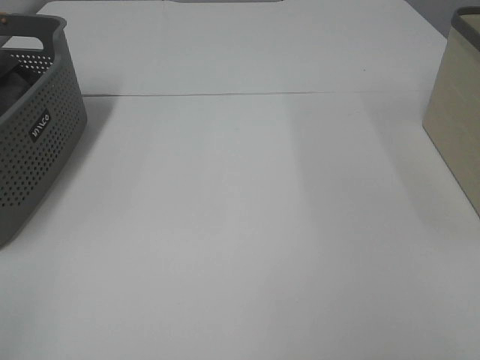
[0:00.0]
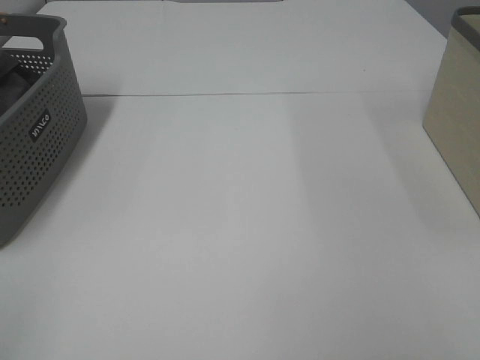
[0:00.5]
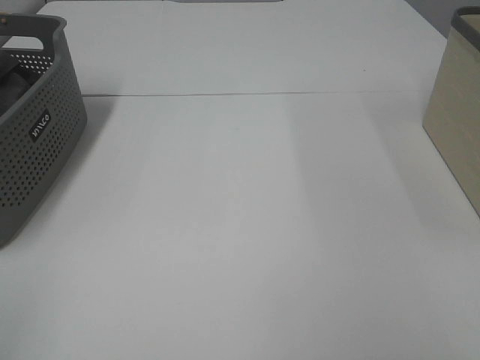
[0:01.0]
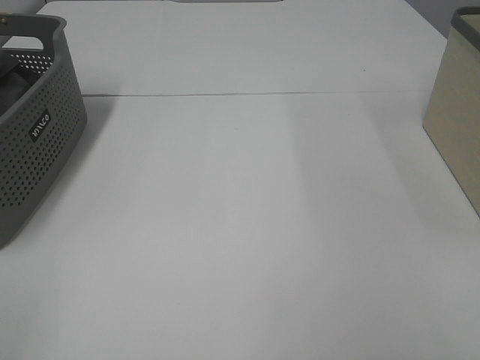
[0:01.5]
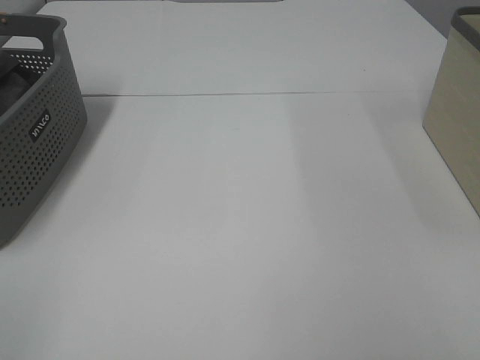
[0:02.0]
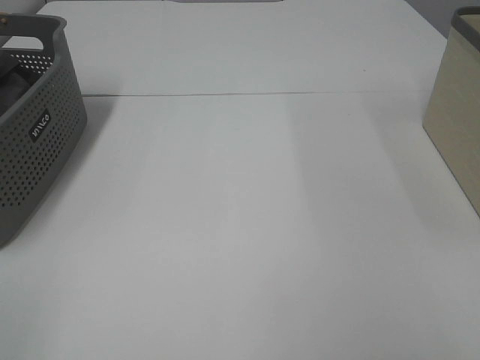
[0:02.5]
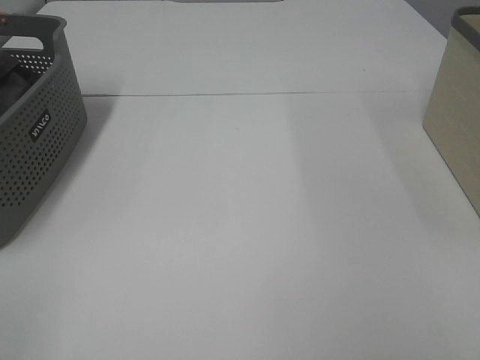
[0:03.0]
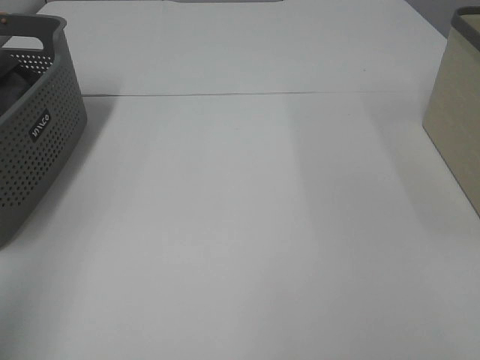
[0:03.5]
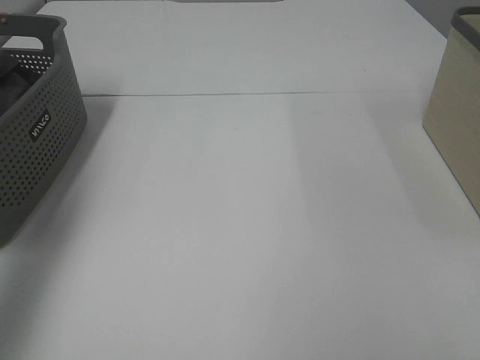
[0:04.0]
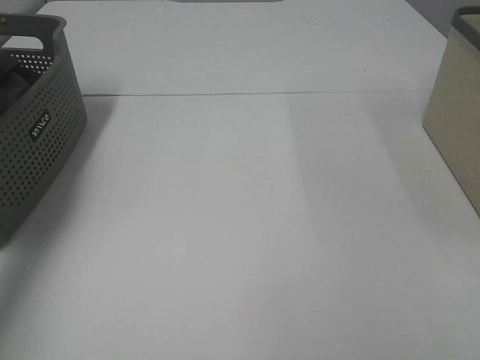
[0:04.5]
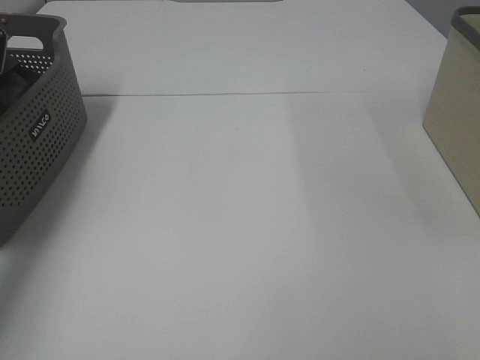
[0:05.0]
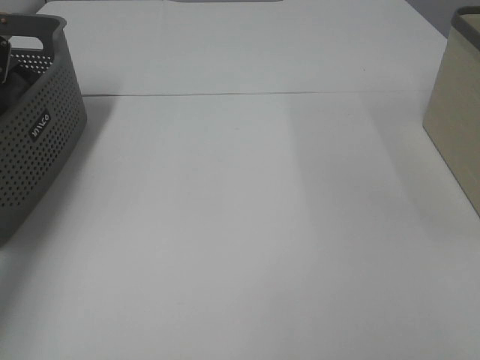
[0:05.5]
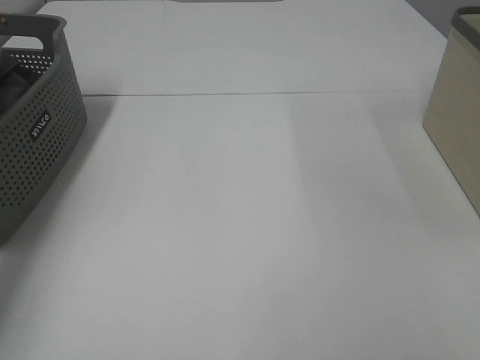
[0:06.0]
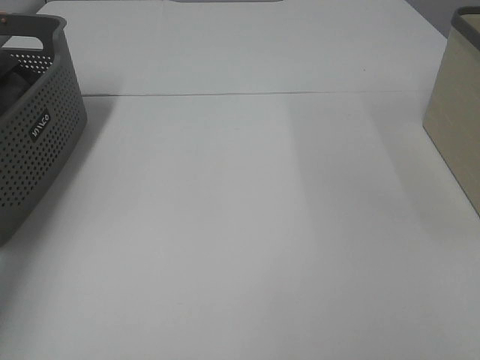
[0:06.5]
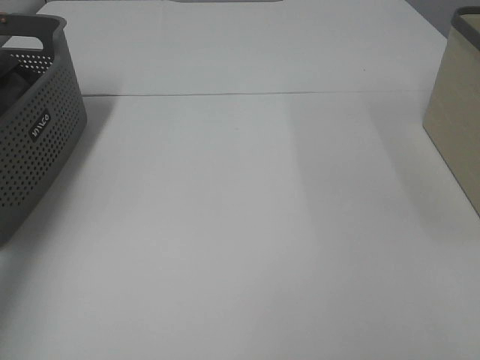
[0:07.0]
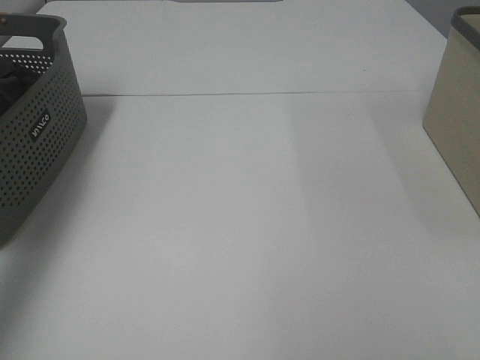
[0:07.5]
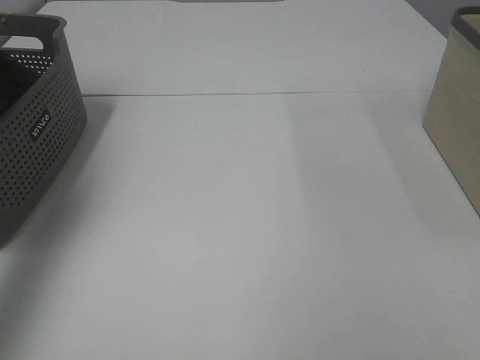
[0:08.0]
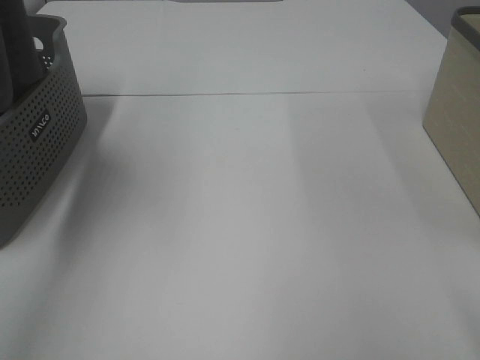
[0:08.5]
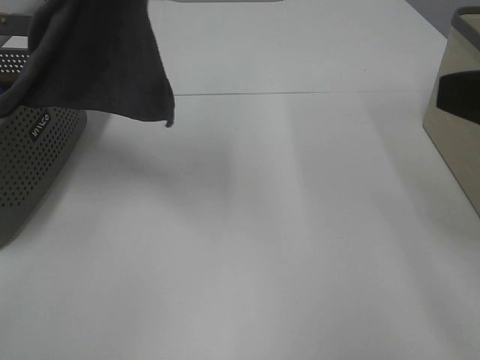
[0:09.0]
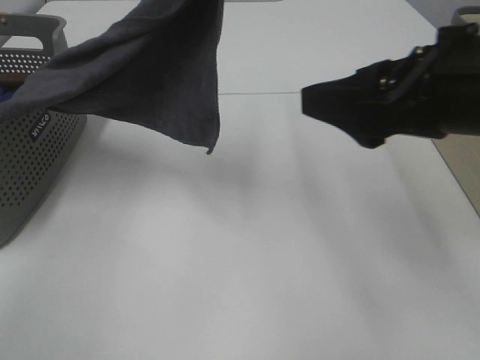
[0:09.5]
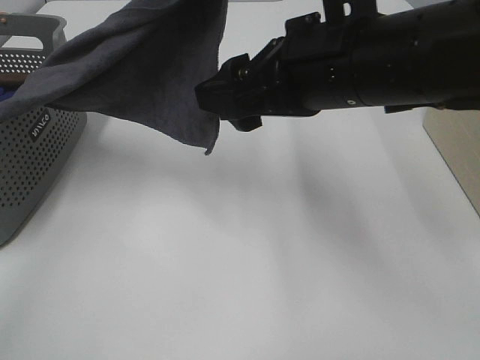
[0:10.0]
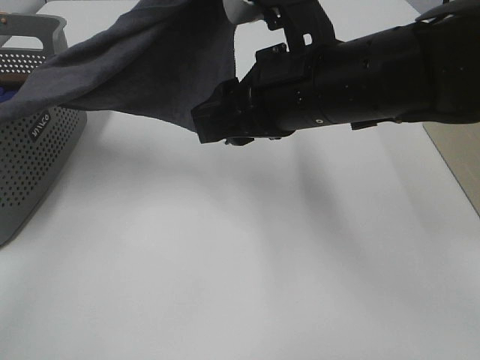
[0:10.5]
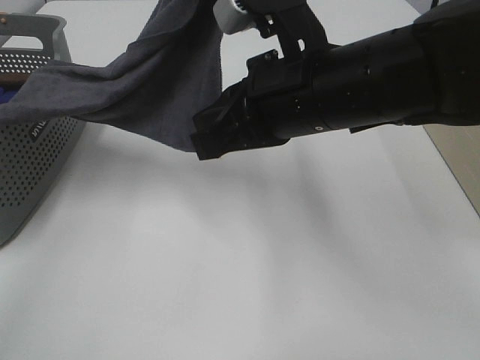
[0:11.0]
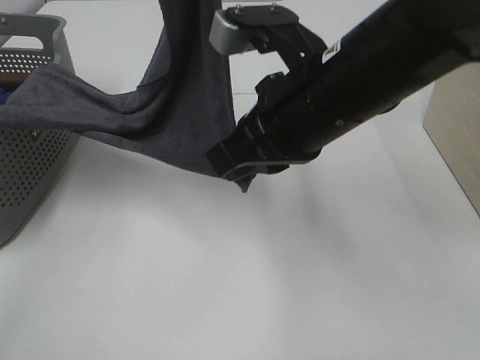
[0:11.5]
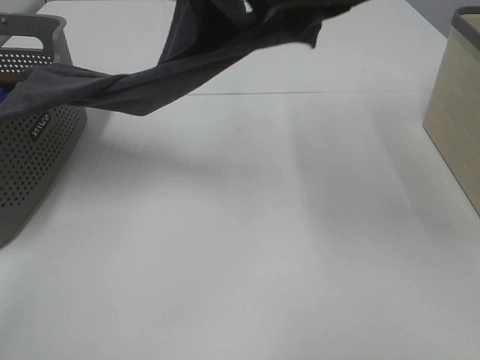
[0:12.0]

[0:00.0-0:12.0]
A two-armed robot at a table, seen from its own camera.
Task of the whole recording: Remove the towel and place it.
Step, 0:08.0 to 0:11.5: Right hand: grab a corner of the grey towel and straighten it.
0:00.0 to 0:02.0: Both grippers stay about where they are.
0:02.0 to 0:04.0: The left gripper is displaced forward and upward by approximately 30 cm.
0:04.0 to 0:06.0: The left gripper travels downward and forward by roughly 30 cm, and closes up.
0:06.0 to 0:08.0: The left gripper travels upward and backward by roughly 30 cm, and closes up.
0:08.0 to 0:10.0: The right gripper goes some 30 cm forward and to the left; the left gripper travels to the right by approximately 25 cm.
0:10.0 to 0:12.0: The right gripper shifts about 10 cm upward, and closes its fingers.

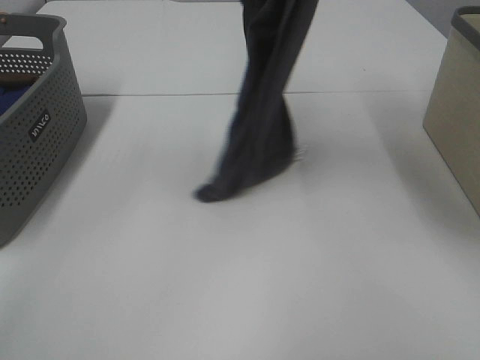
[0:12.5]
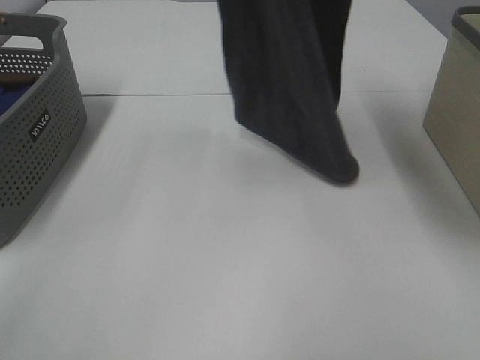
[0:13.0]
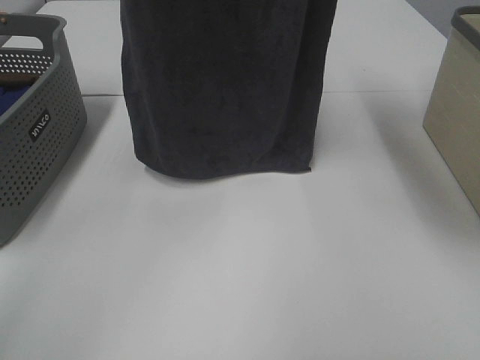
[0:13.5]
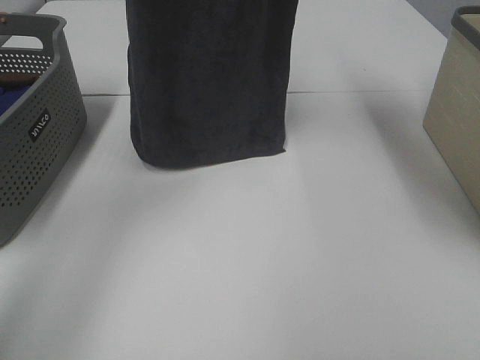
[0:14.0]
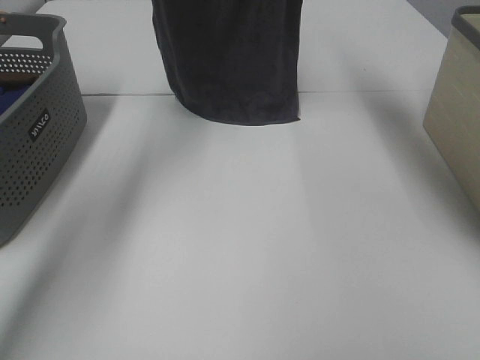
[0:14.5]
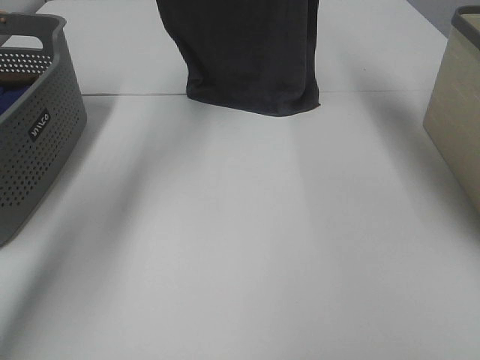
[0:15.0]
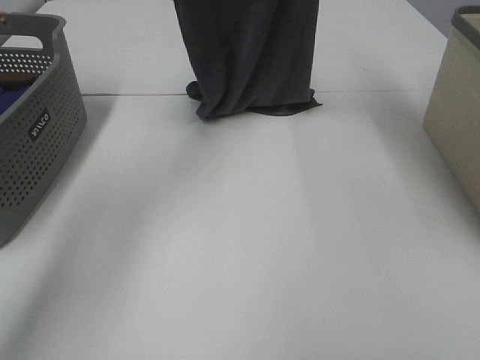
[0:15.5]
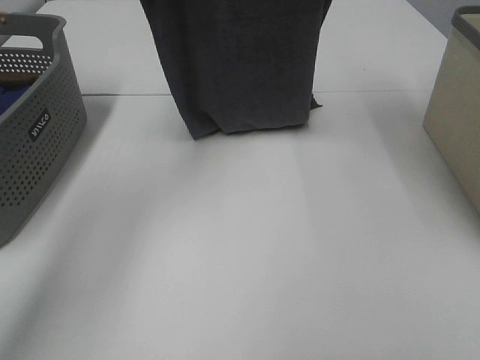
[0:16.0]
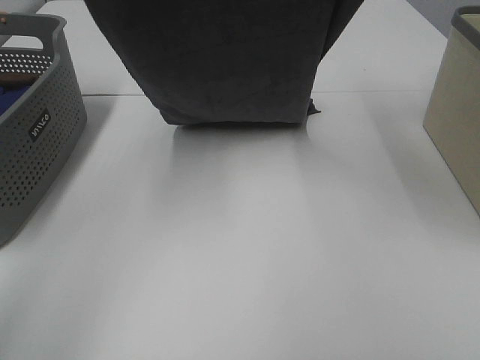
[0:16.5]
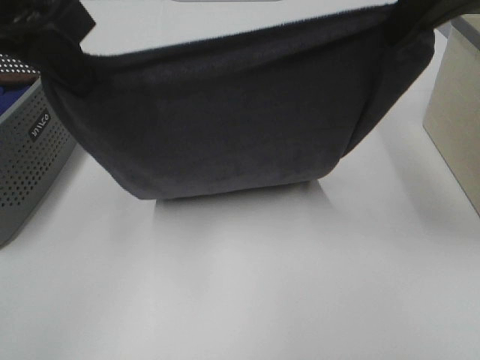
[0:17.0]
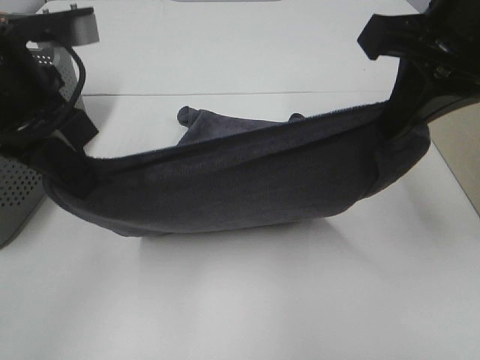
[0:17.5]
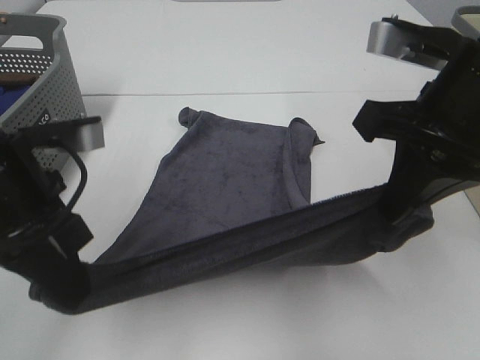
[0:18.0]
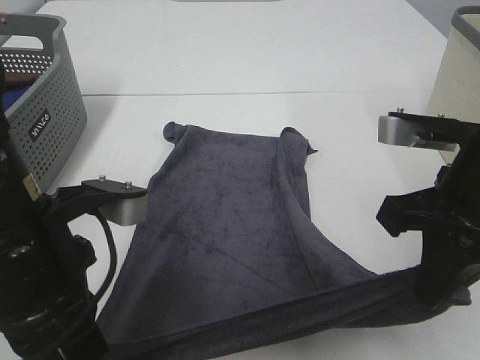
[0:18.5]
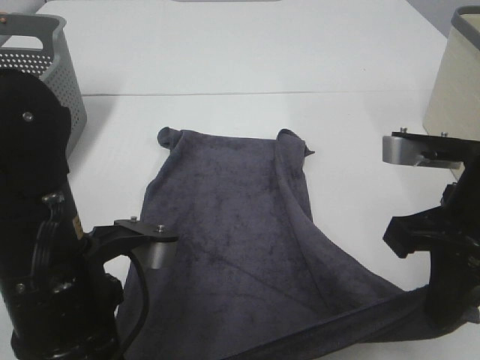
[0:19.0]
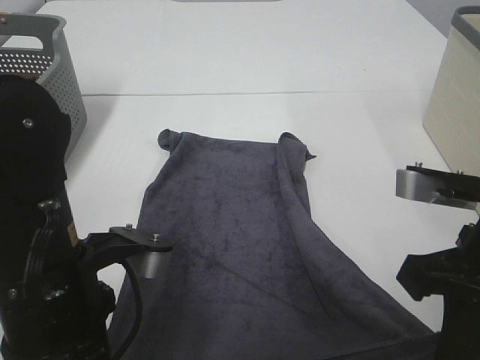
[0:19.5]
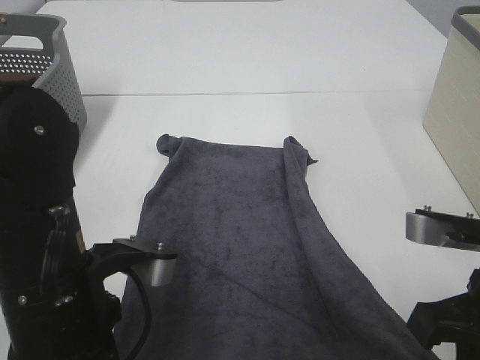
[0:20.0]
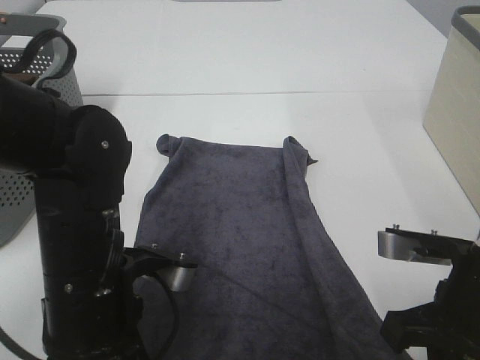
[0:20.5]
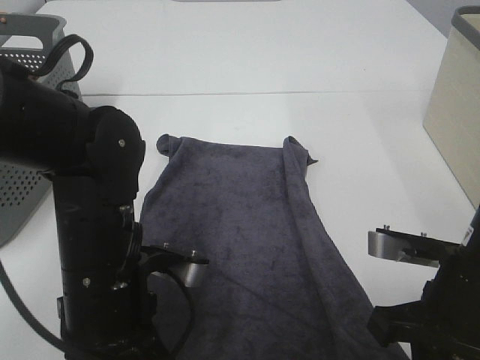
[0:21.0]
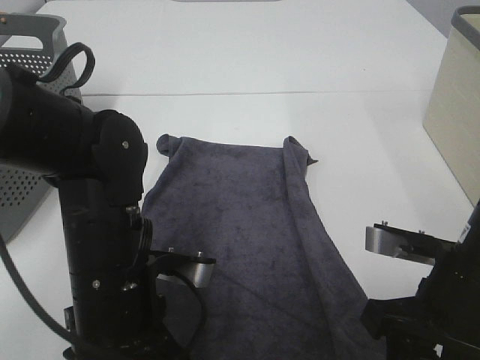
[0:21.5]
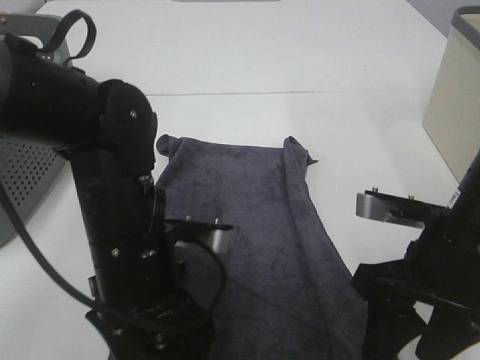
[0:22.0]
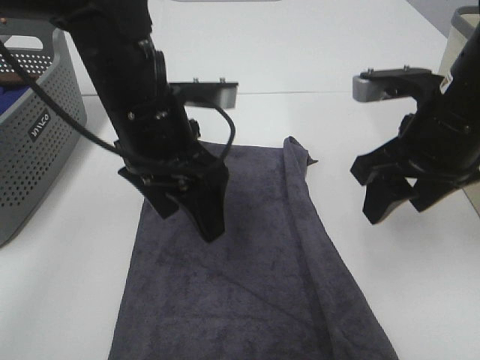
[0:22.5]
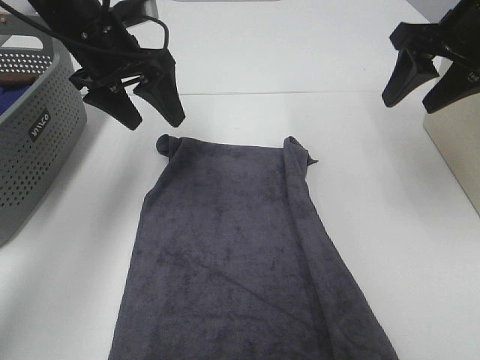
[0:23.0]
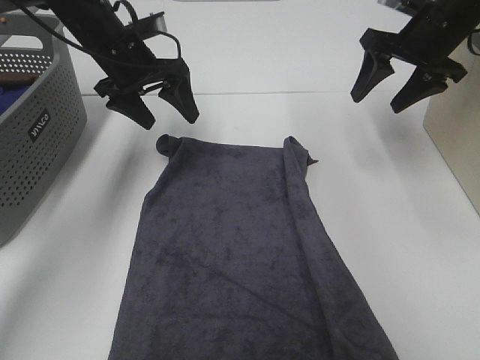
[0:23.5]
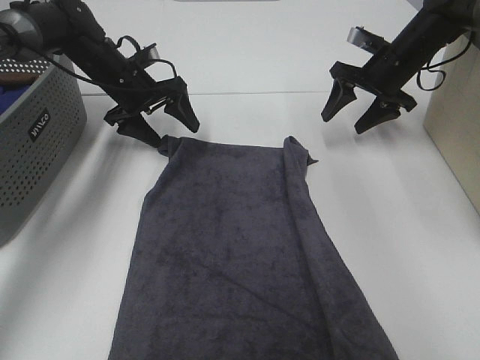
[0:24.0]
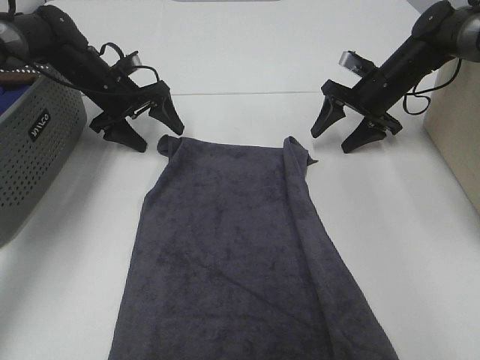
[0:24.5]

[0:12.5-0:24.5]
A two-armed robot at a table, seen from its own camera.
Task of the whole recording: Remove the towel and place it.
Step, 0:12.5 to 0:17.5: Left hand: spread the grey towel flat on the table.
Step, 0:12.5 to 0:17.5: Right hand: spread the grey towel flat on the table.
Step, 0:18.0 to 0:24.0: Left hand:adjust the gray towel.
Step, 0:18.0 to 0:24.0: Right hand:adjust the gray towel.
0:12.5 to 0:14.5: The grippers both shift forward by about 20 cm.
0:14.5 to 0:16.5: The two grippers go roughly 15 cm backward.
0:16.5 to 0:18.5: The two grippers go approximately 25 cm downward and backward.
0:18.5 to 0:20.5: Both grippers move downward, roughly 5 cm.
0:20.5 to 0:22.5: The grippers both shift forward and upward by about 15 cm. The right gripper opens its fingers, while the left gripper opens its fingers.
0:22.5 to 0:24.5: The left gripper goes approximately 30 cm forward, to the left and downward; the right gripper heads forward and downward, covering some 30 cm.

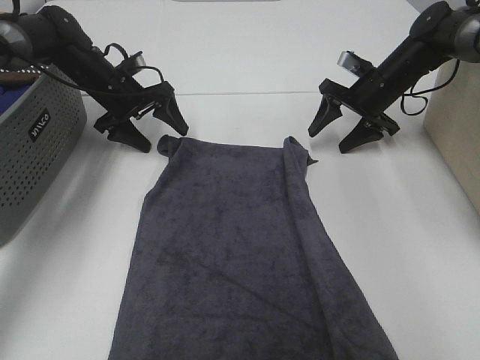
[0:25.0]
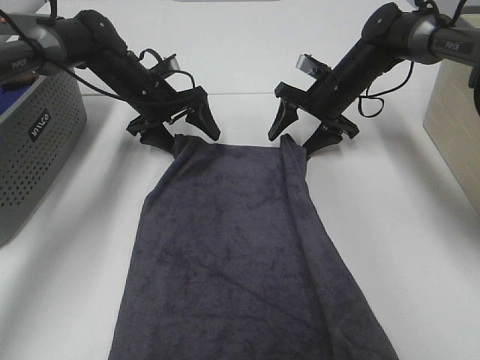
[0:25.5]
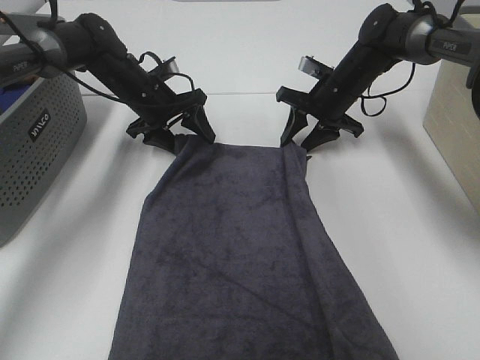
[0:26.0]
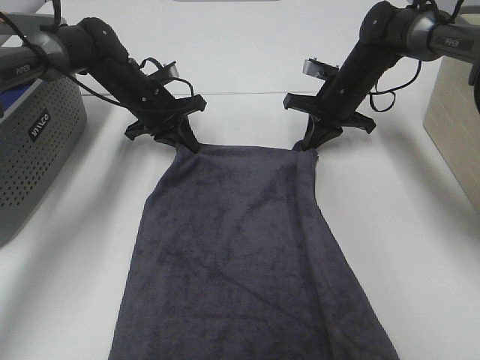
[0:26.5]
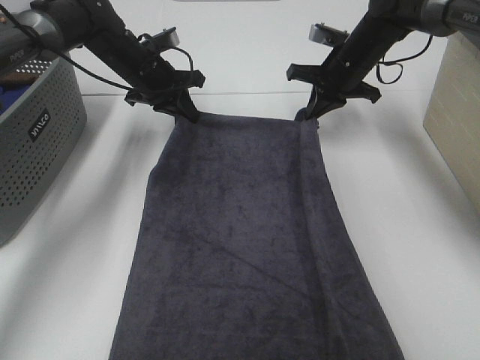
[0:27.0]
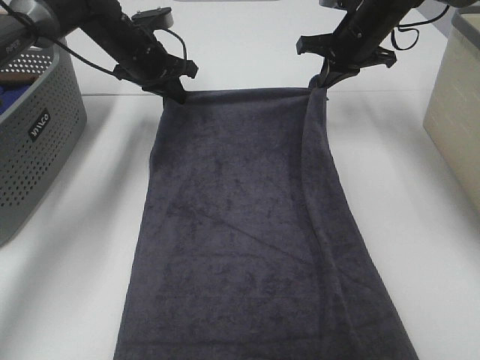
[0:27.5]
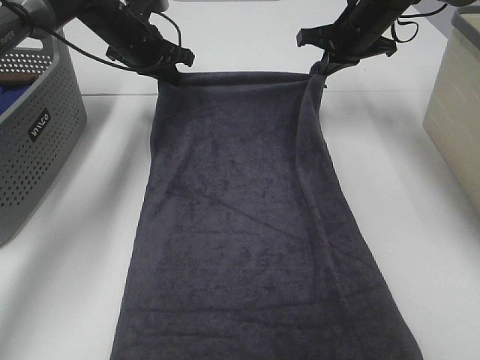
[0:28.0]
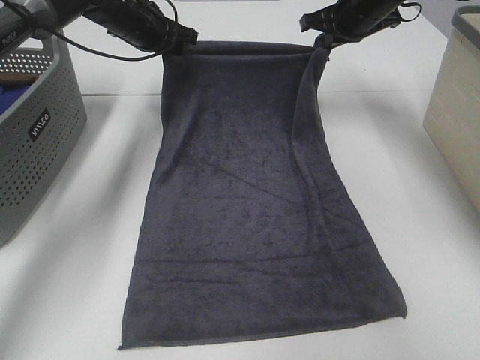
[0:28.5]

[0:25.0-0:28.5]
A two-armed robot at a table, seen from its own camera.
Task of the whole recording: Remove the towel and place it.
0:25.0 to 0:27.0: The left gripper ends up approximately 5 cm from where it was, and closes. The right gripper moves to the left and upward, roughly 5 cm, and closes up.
0:27.0 to 0:28.5: Both grippers travel together upward, some 5 cm.
